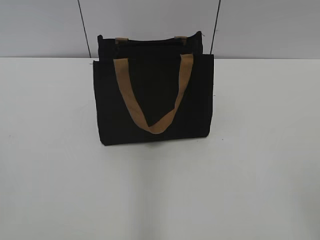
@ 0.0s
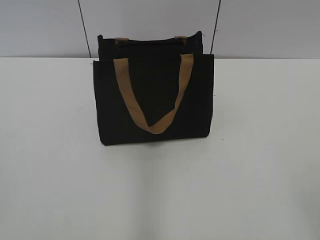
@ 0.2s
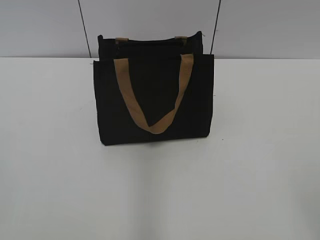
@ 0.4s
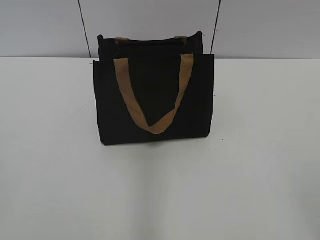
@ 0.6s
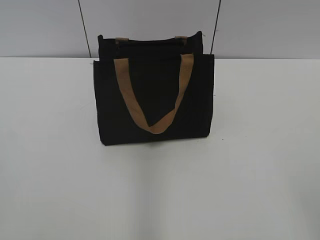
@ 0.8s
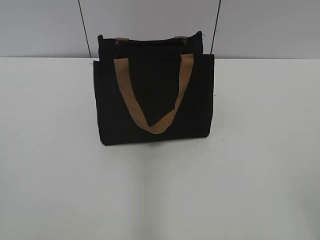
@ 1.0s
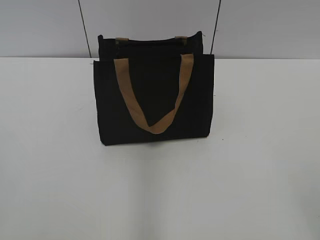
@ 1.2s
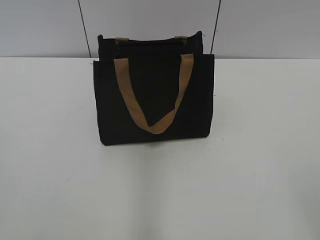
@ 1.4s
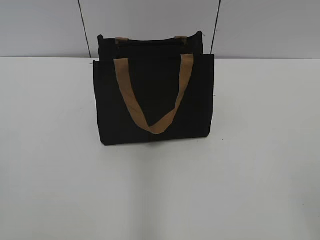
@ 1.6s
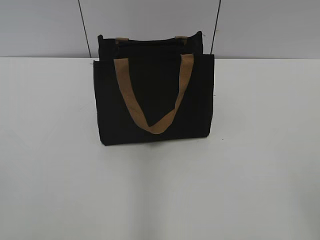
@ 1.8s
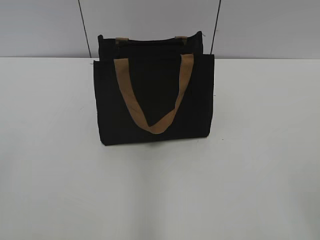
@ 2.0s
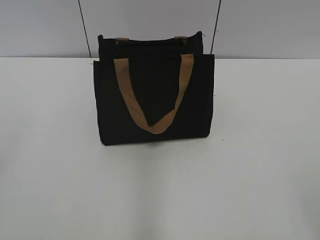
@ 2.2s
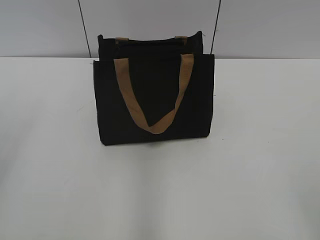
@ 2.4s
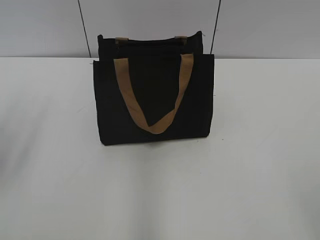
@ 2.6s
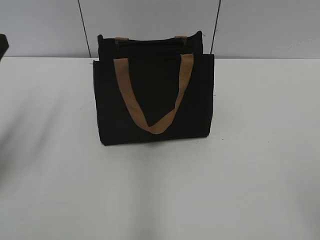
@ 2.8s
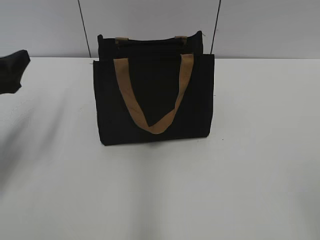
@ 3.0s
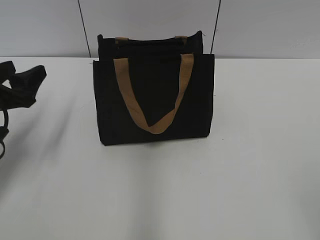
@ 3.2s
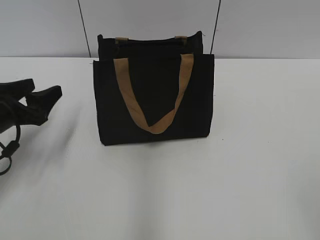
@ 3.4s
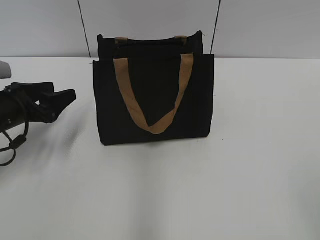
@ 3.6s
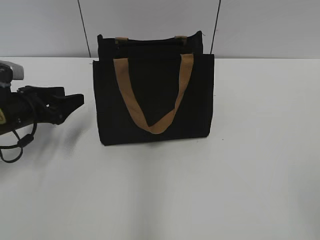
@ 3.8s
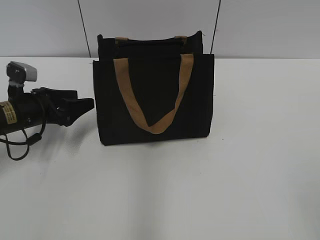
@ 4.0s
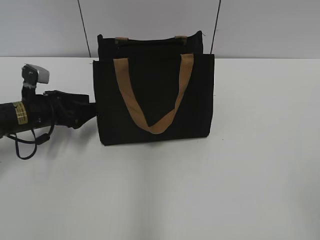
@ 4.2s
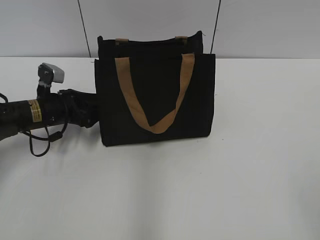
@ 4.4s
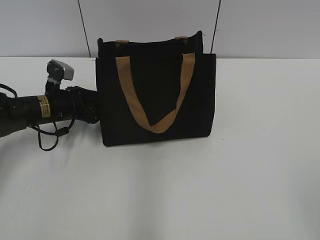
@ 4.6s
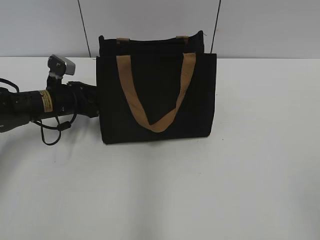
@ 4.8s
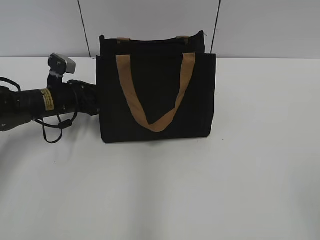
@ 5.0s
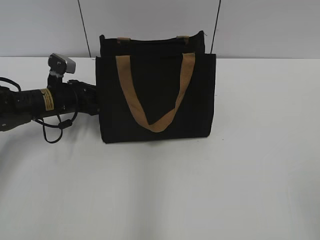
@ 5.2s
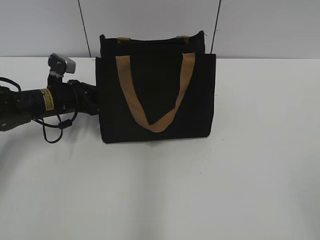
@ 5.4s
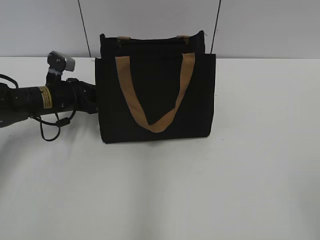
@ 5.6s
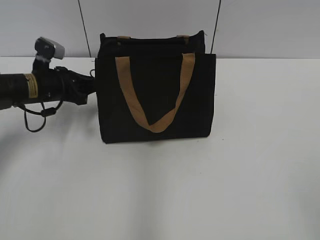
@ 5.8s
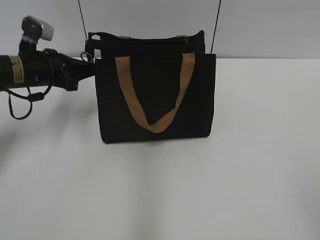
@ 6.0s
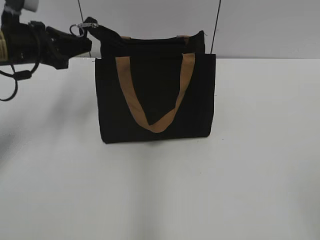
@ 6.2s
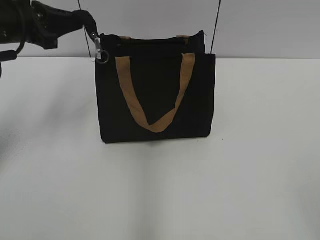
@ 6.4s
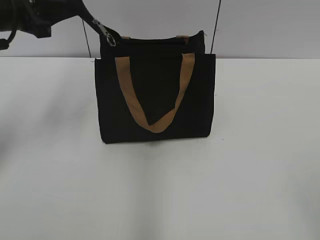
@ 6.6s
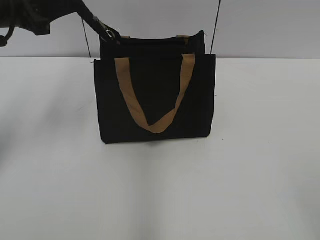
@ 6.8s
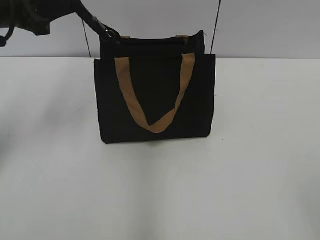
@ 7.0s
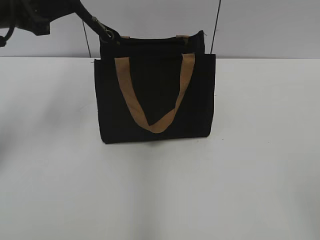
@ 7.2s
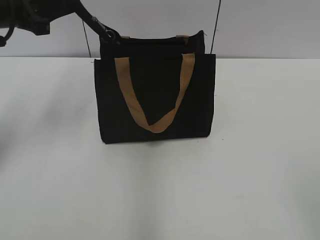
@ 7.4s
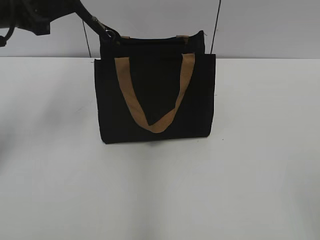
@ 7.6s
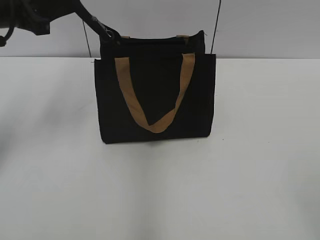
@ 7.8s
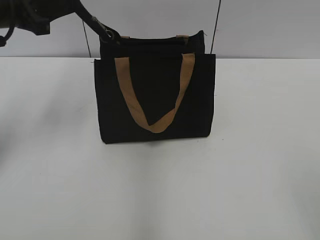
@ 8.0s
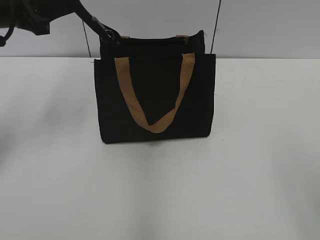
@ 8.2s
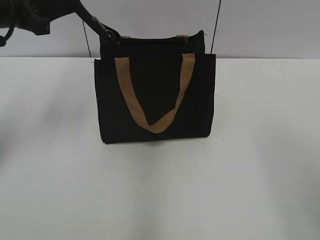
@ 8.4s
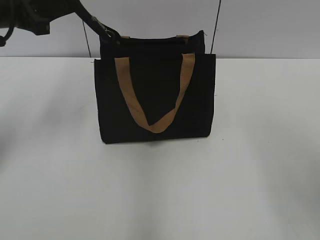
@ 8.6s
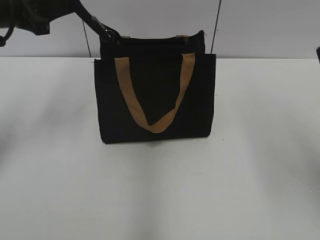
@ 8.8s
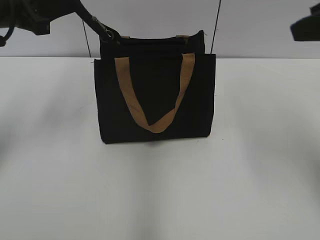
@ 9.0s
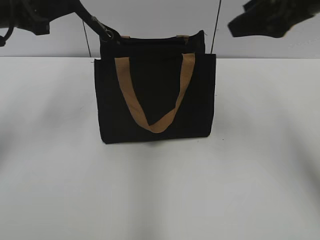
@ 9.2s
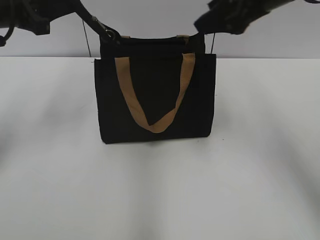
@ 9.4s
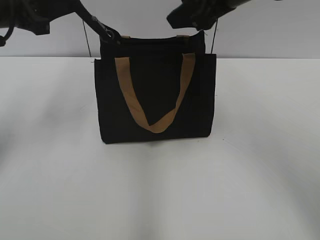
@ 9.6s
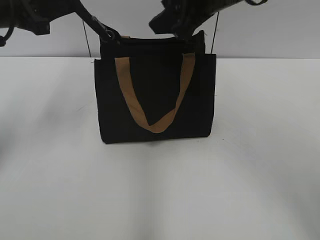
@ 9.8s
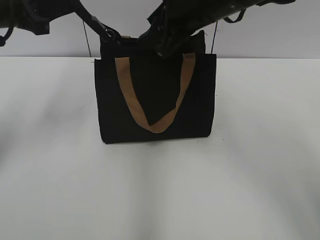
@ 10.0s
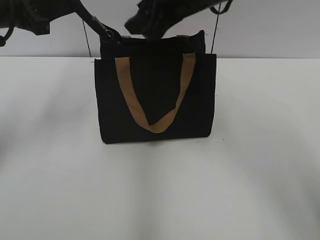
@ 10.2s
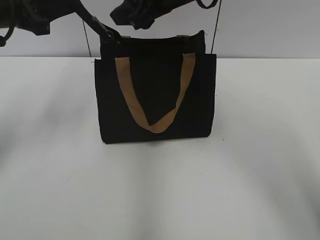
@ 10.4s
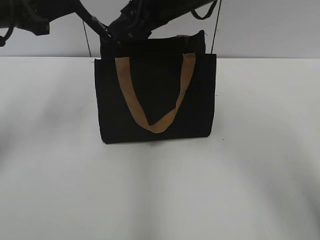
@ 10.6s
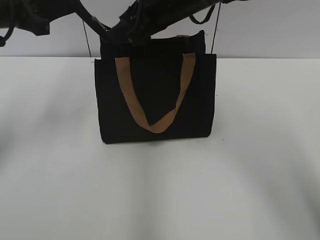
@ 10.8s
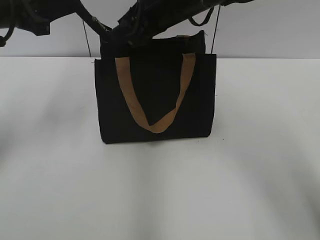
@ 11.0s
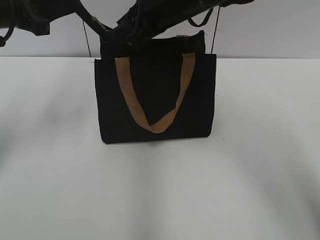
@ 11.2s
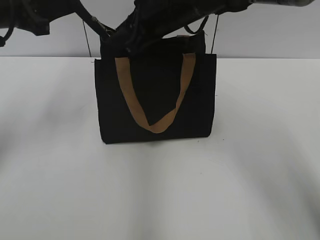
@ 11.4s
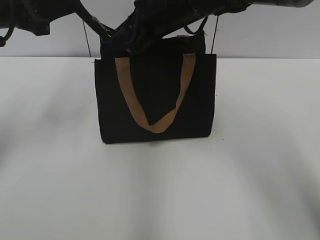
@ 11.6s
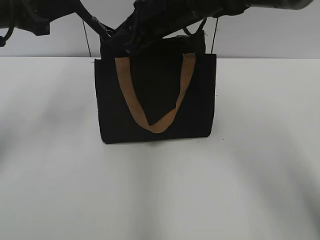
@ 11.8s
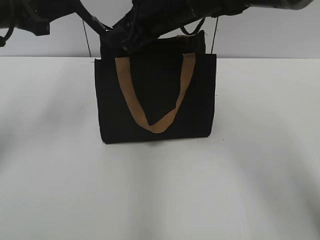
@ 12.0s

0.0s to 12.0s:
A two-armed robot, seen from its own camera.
1.6s to 3.0s: The left gripper travels forward by approximately 25 cm, and opens its fingers.
3.0s to 4.4s: The left gripper is displaced downward, forward and to the right by about 20 cm.
4.4s to 6.0s: The left gripper travels upward by some 5 cm, and closes.
6.0s to 7.6s: The left gripper moves upward, approximately 15 cm.
7.6s to 9.0s: The right gripper heads forward, covering approximately 25 cm.
9.0s to 10.4s: The right gripper is displaced to the left and forward by about 25 cm.
10.4s to 12.0s: The right gripper moves roughly 5 cm.

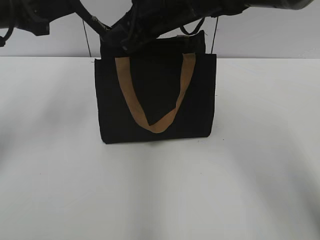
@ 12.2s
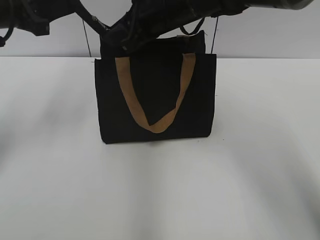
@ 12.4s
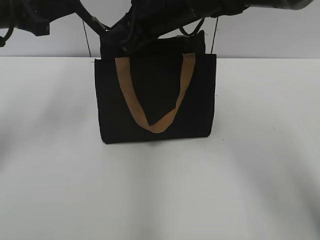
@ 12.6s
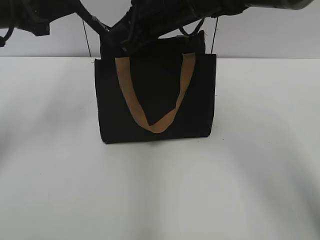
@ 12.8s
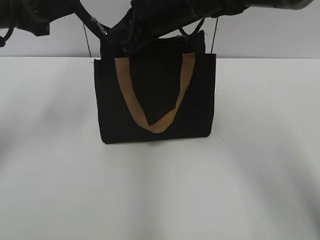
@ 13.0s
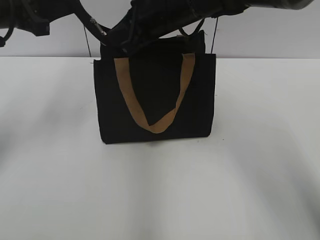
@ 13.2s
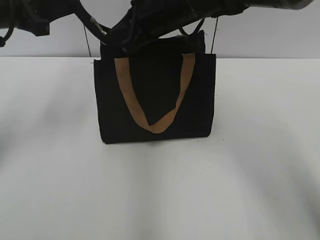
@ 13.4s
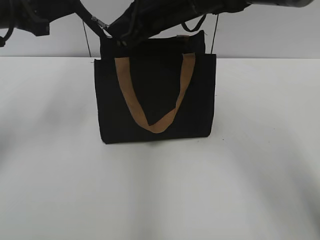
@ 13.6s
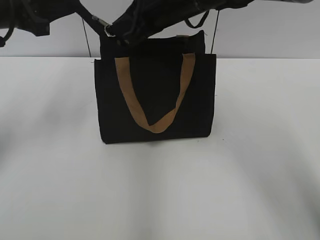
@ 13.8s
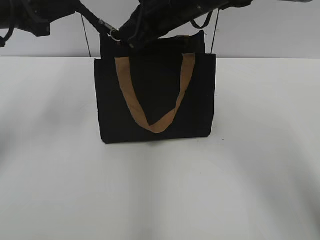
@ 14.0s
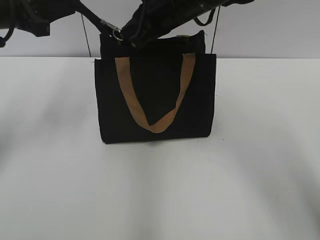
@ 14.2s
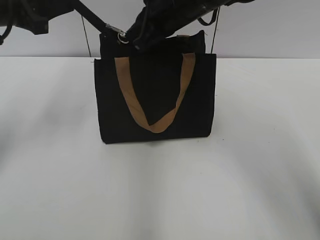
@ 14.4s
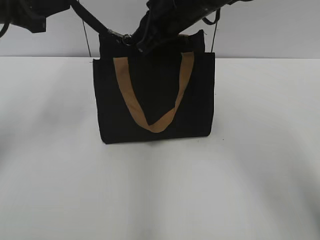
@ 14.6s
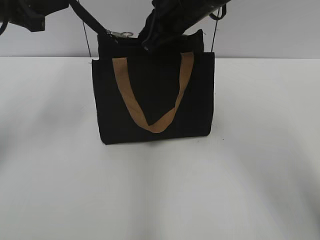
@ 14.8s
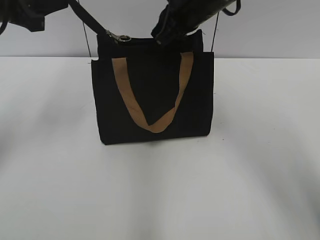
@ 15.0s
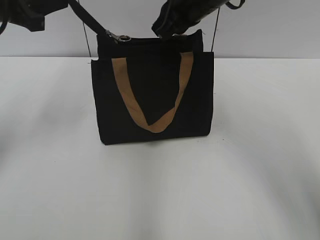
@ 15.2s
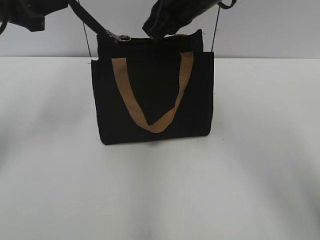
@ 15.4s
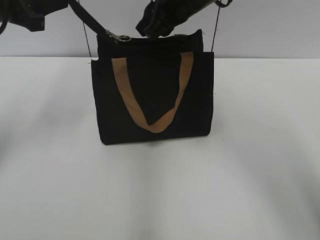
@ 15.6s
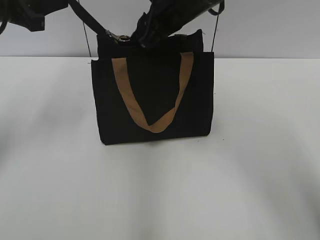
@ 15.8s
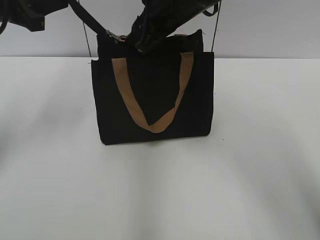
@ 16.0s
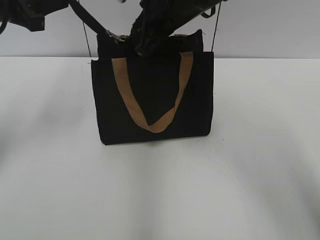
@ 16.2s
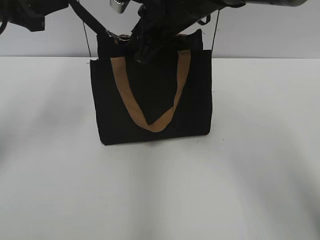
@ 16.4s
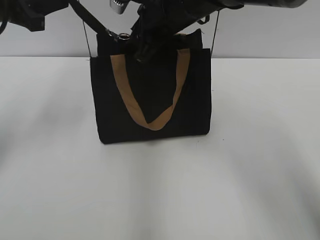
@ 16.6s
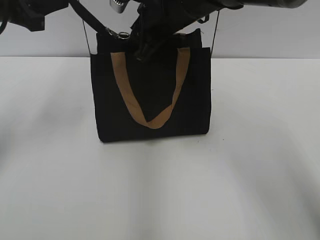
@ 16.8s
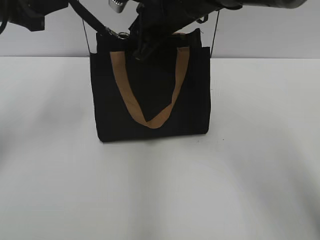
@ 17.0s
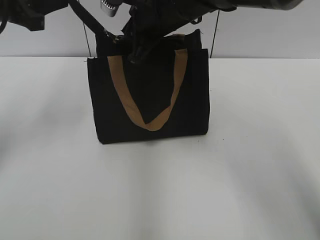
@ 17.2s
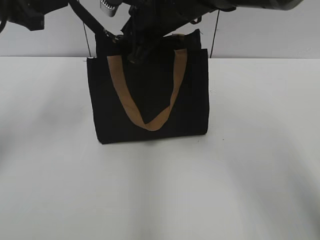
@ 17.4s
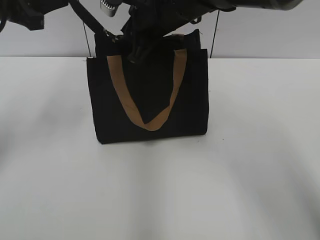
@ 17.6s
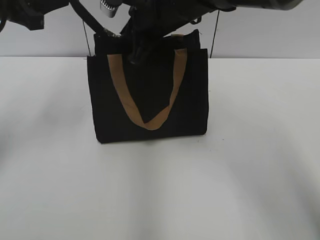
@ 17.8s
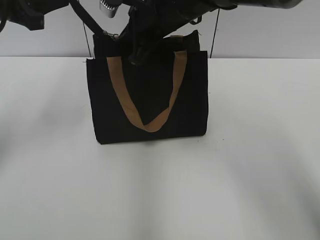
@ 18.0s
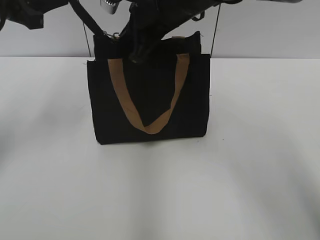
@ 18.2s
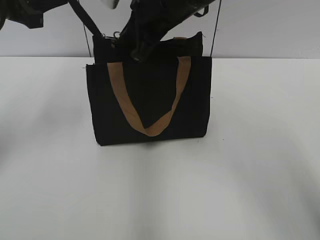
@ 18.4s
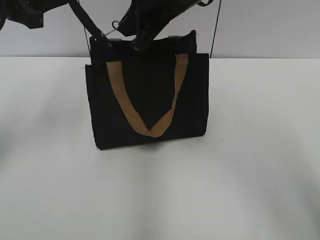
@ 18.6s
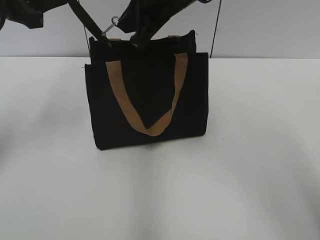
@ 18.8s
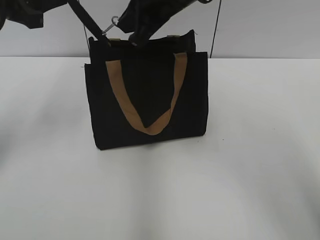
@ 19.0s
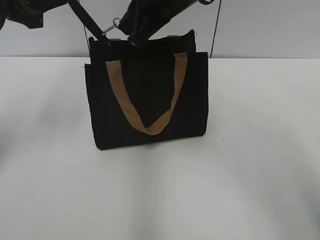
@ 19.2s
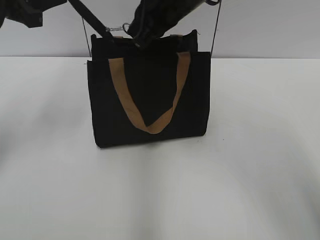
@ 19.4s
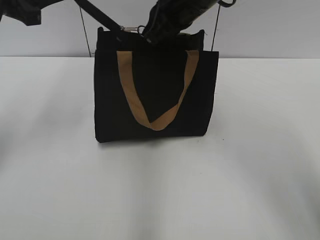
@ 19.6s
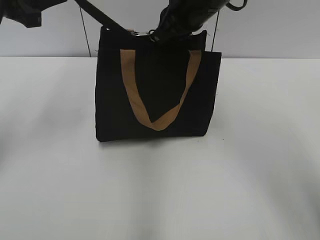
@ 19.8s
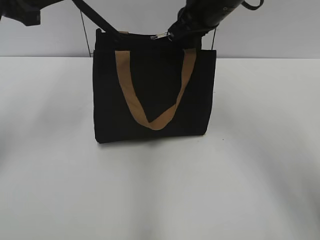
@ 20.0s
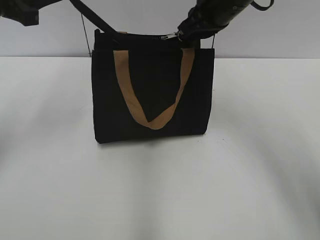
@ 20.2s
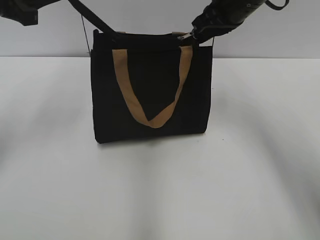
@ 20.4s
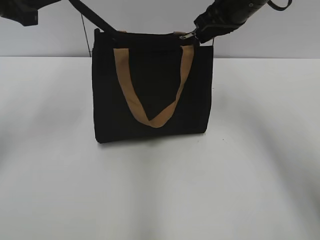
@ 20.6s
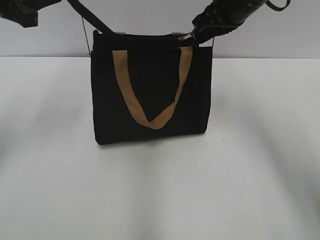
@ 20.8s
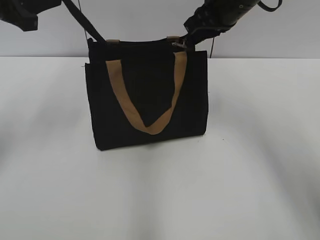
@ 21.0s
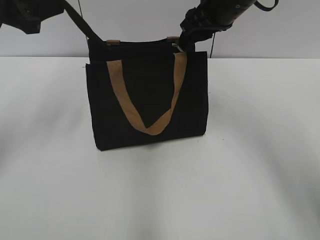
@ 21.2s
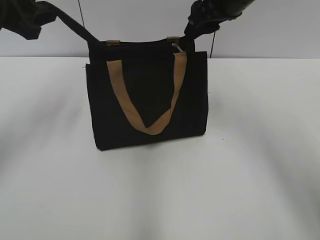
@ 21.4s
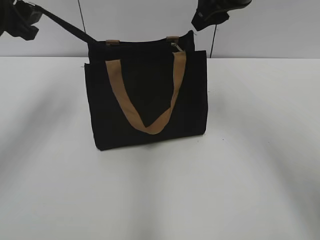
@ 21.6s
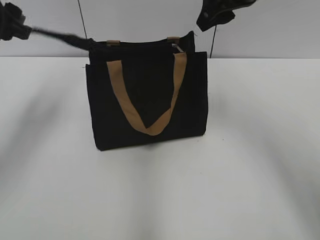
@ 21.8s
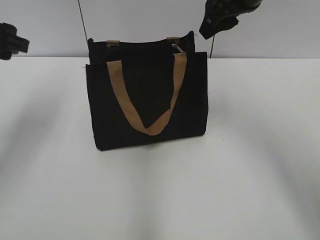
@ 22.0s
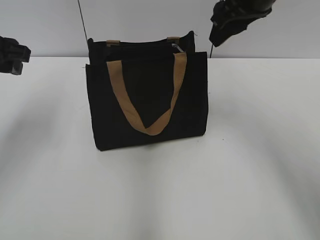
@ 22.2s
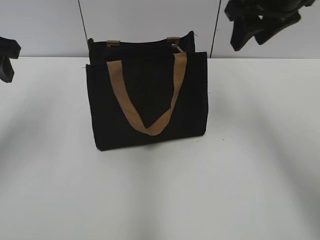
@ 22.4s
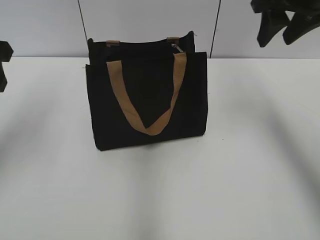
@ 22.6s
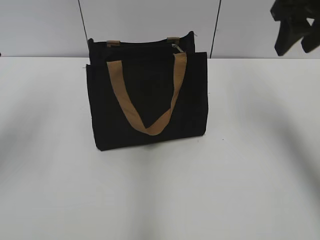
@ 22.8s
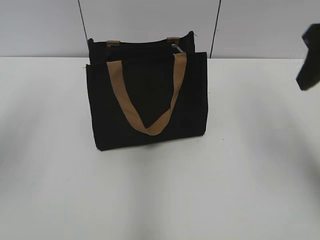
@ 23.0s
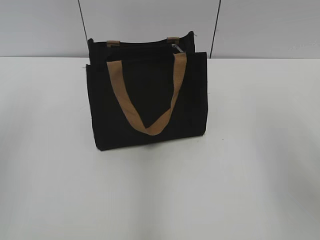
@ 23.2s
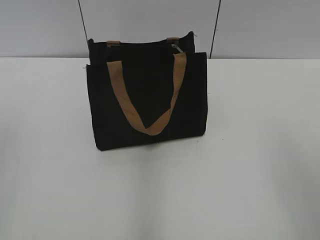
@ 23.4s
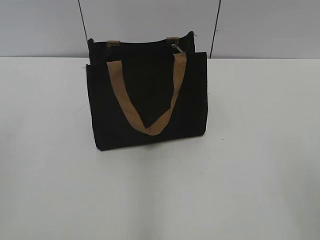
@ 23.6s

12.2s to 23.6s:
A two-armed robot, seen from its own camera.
Step, 12.2s to 21.2s: Zip up the bag with your right hand.
12.2s to 13.6s: The right gripper closes its fingers.
13.6s to 15.0s: The grippers make only small movements.
15.0s to 16.4s: The right gripper opens up.
16.4s to 17.8s: The right gripper closes.
17.8s to 19.4s: The right gripper closes its fingers.
19.4s to 20.8s: The right gripper moves to the right, some 10 cm.
20.8s to 22.2s: The left gripper opens up, while the right gripper ends up approximately 5 cm from where it was, and opens up.
22.2s to 23.6s: The two grippers go roughly 25 cm backward.
